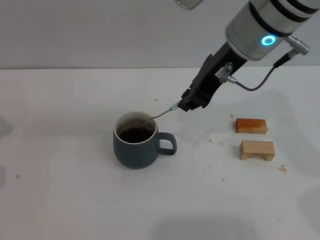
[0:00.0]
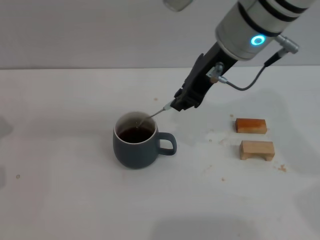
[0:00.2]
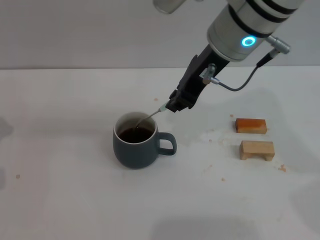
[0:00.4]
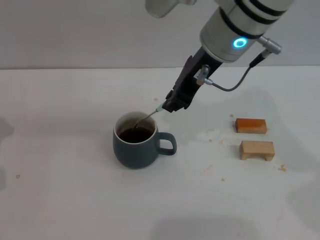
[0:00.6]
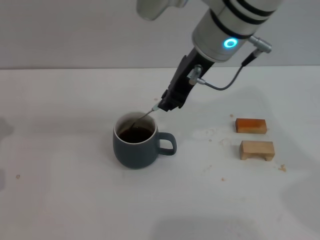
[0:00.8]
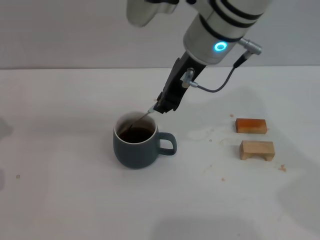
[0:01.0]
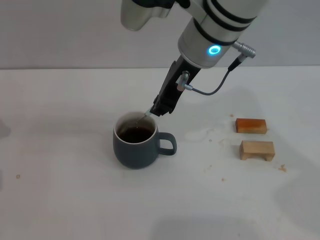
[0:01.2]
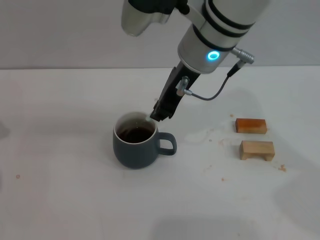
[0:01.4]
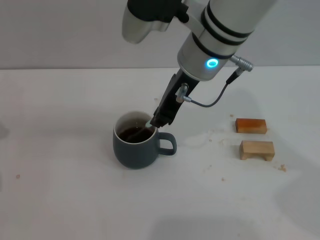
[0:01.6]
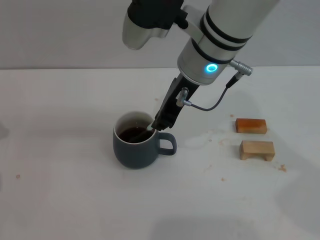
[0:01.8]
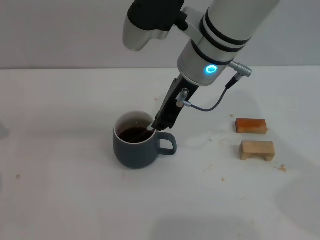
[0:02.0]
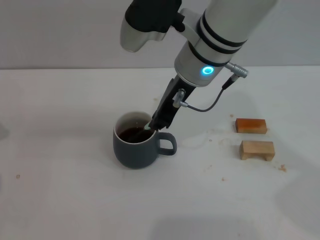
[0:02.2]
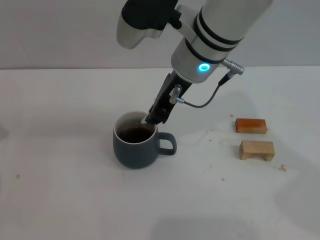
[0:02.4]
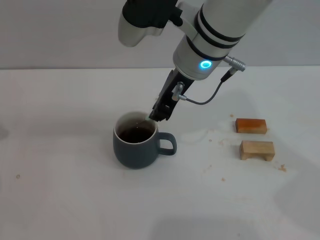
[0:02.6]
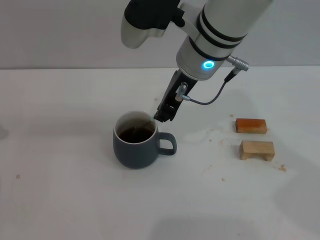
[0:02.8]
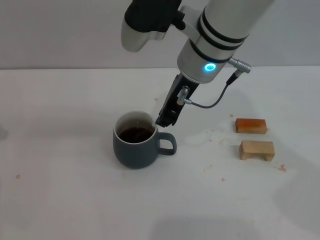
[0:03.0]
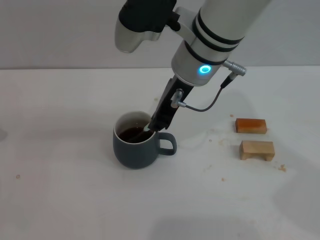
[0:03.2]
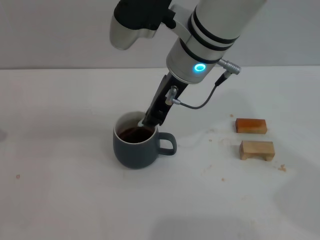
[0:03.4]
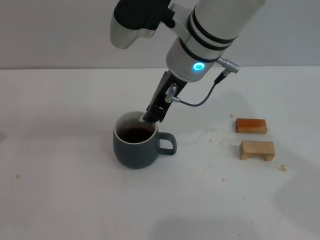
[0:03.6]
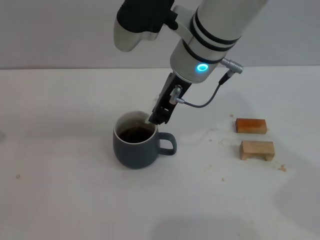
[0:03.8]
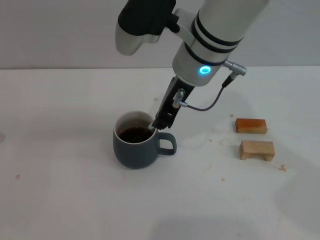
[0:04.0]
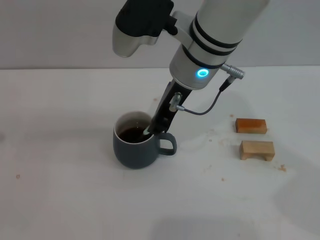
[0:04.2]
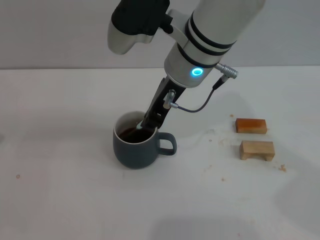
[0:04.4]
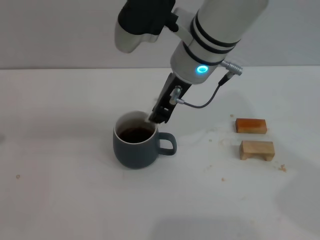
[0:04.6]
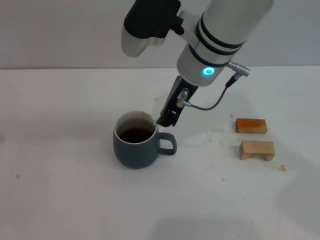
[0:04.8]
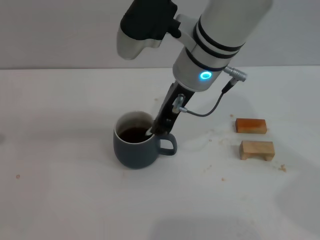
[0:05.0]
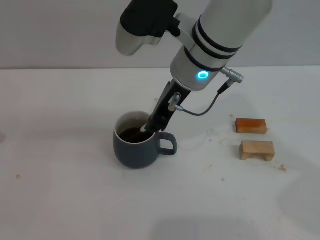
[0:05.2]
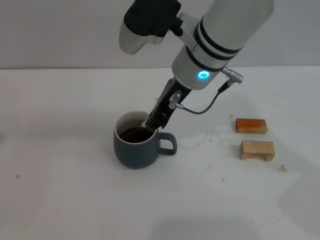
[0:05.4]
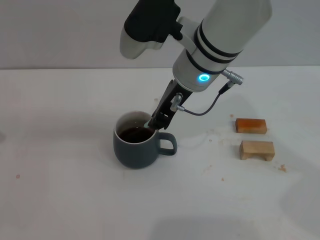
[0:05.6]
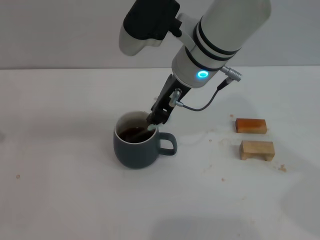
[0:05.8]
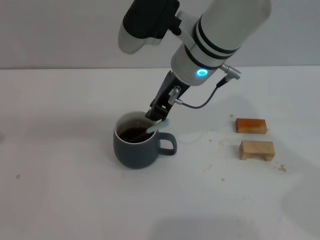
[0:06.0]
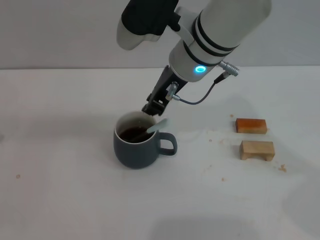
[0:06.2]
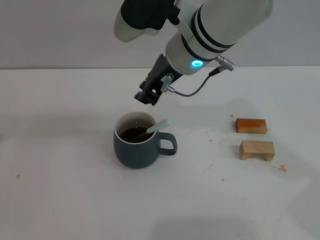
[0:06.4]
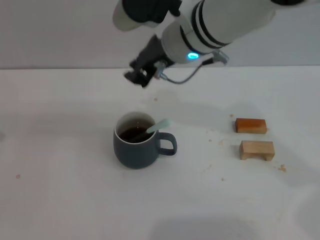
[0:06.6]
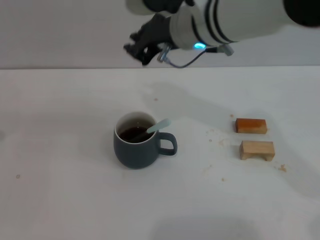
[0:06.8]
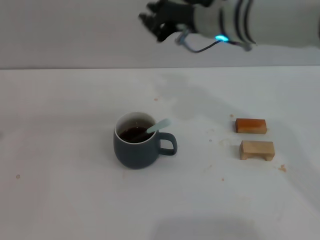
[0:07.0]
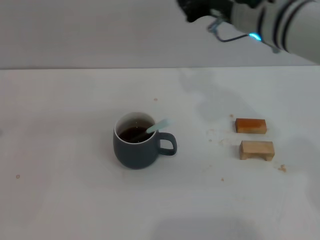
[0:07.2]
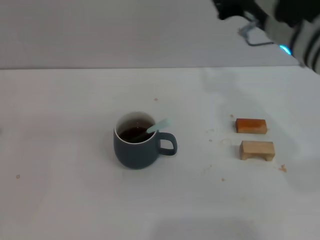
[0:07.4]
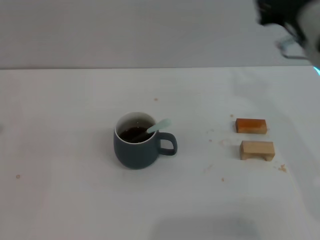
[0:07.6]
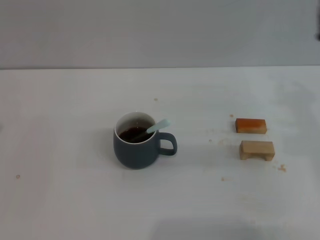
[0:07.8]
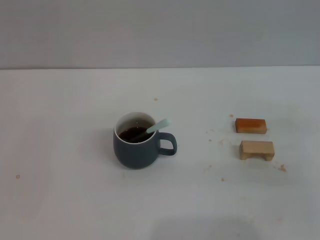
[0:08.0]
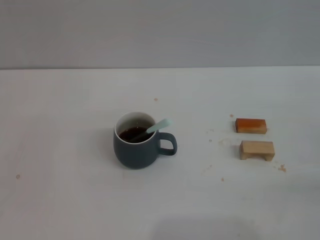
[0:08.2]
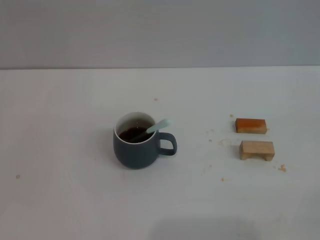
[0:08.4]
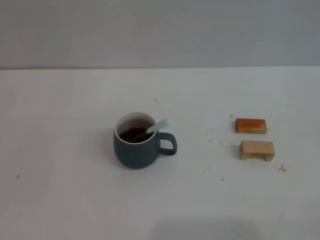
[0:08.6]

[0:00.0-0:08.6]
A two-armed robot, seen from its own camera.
Task of the whole recording: Move the grey cup to the center, lift the blue spoon, stir it three times in the cup, and put the spoon into the cup.
Step, 0:00.0 to 0:06.2: Stir the coffee in the cup with the right gripper.
0:00.0 to 0:01.4: The right gripper moves to the left, some 5 cm.
0:01.4 to 0:05.8: The grippers make only small movements.
0:05.8 to 0:07.2: The right gripper is displaced to the right by some 10 cm.
0:07.2 to 0:08.6: The right gripper goes about 40 cm to the right, backward and downward.
